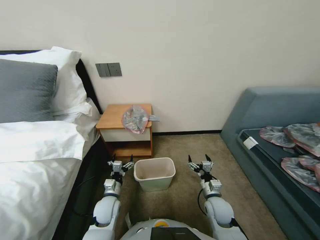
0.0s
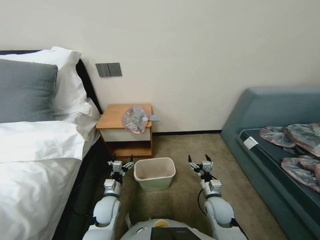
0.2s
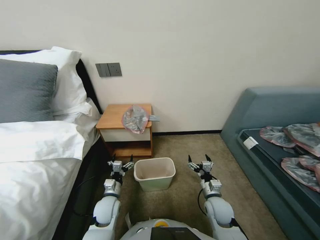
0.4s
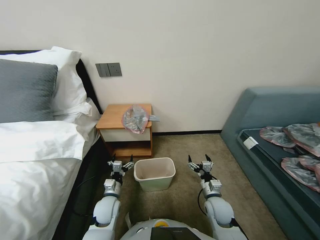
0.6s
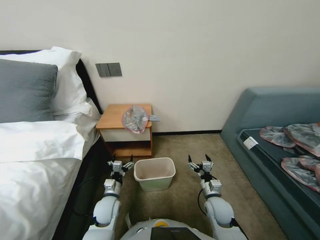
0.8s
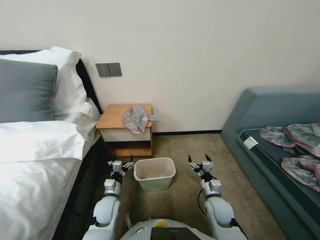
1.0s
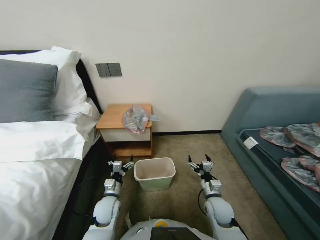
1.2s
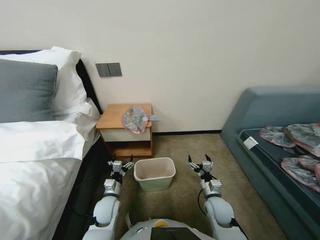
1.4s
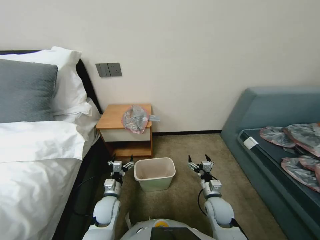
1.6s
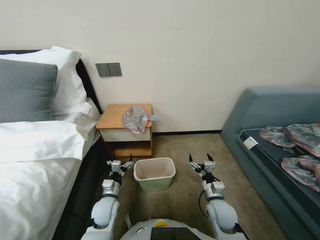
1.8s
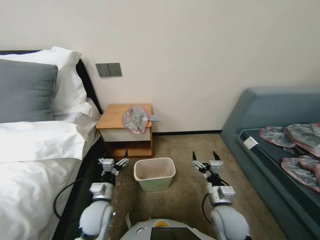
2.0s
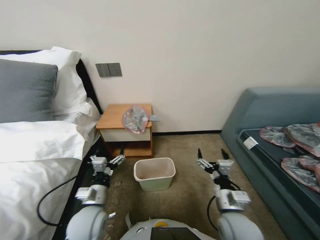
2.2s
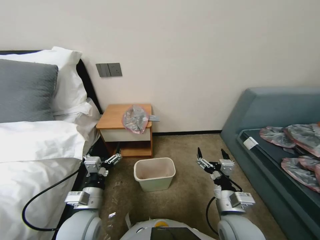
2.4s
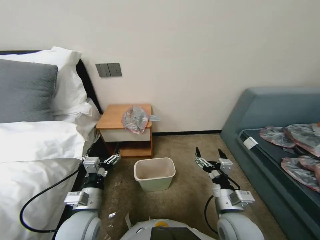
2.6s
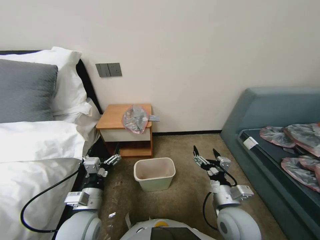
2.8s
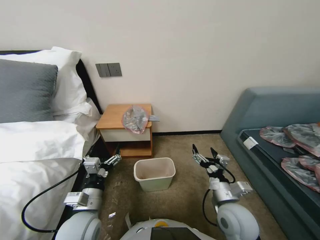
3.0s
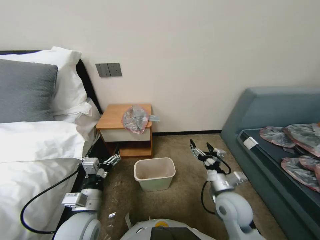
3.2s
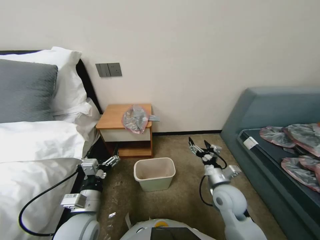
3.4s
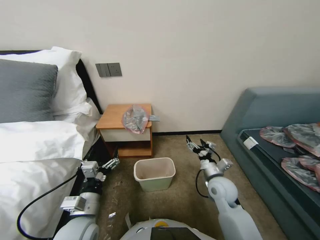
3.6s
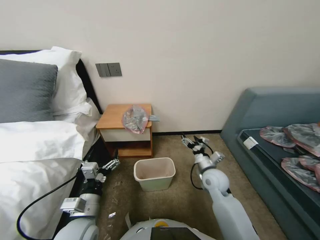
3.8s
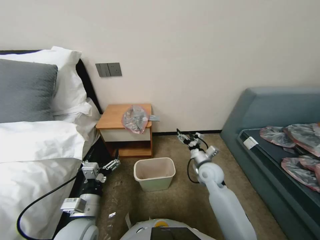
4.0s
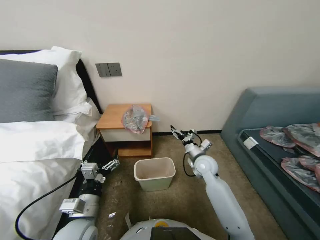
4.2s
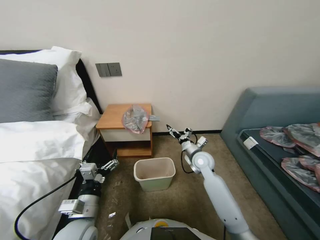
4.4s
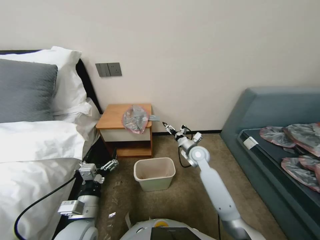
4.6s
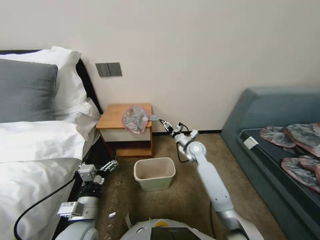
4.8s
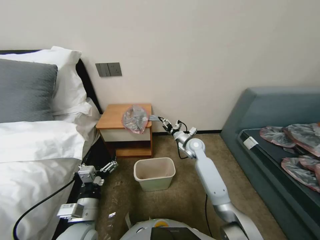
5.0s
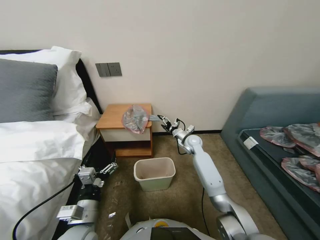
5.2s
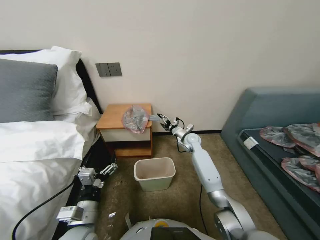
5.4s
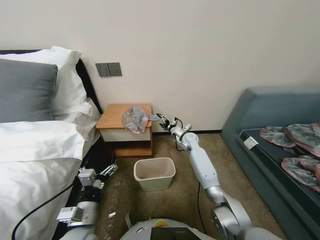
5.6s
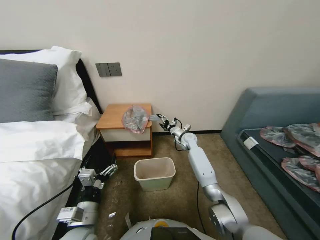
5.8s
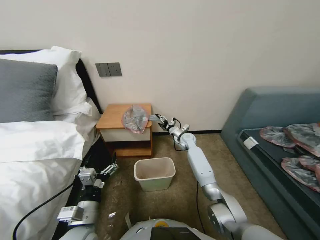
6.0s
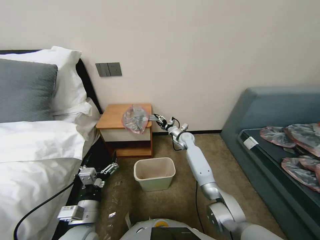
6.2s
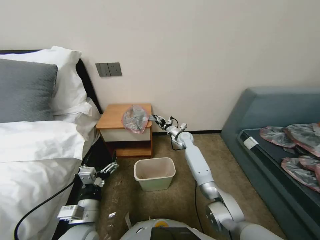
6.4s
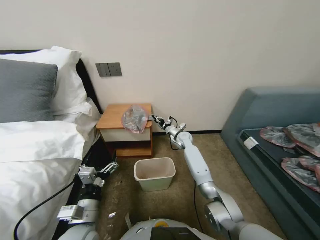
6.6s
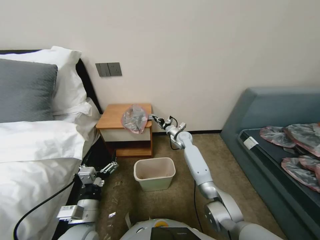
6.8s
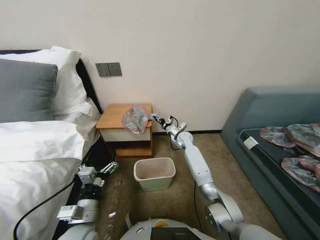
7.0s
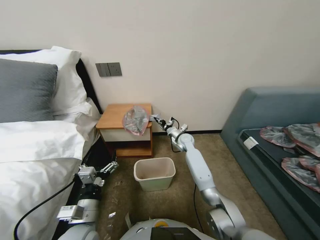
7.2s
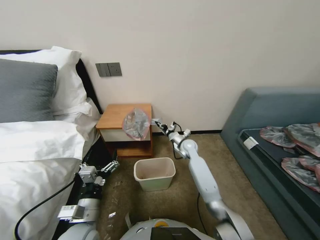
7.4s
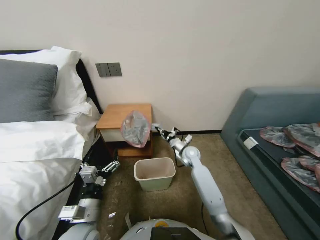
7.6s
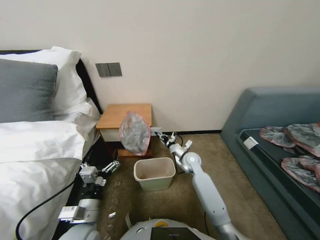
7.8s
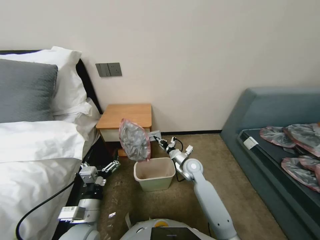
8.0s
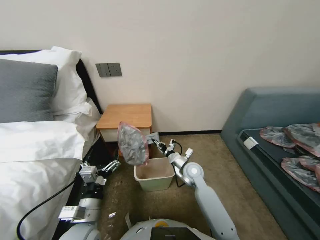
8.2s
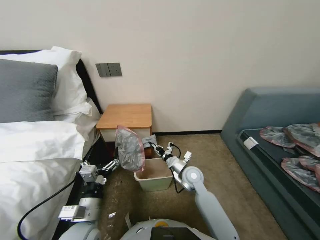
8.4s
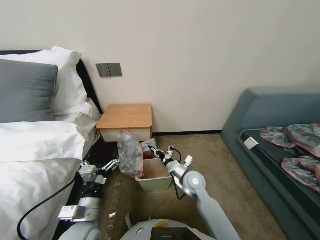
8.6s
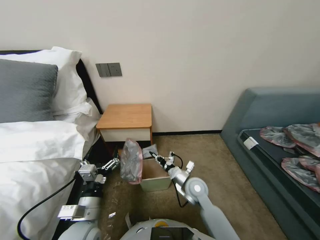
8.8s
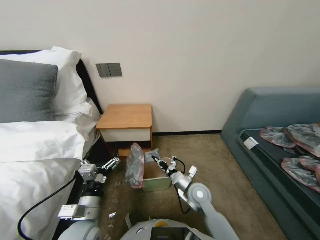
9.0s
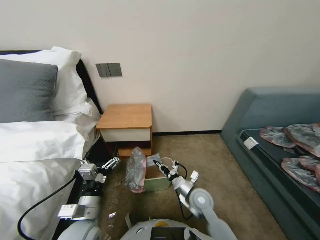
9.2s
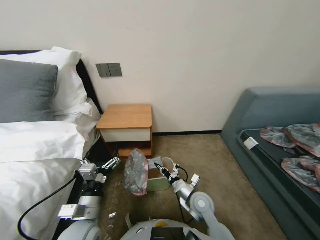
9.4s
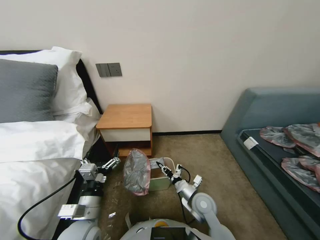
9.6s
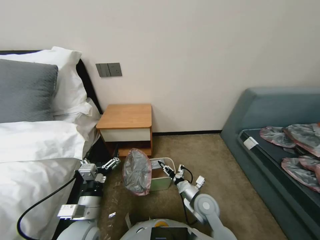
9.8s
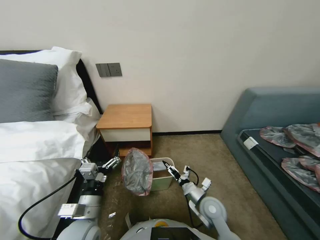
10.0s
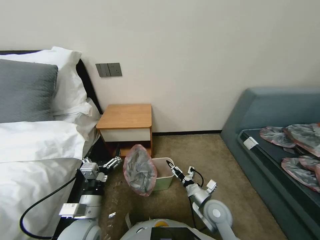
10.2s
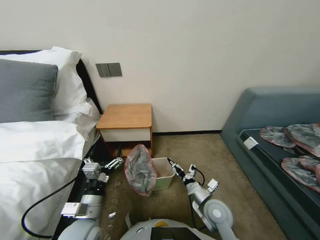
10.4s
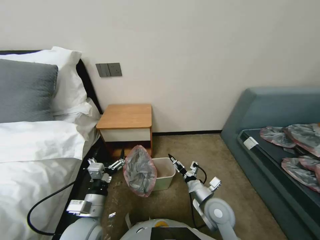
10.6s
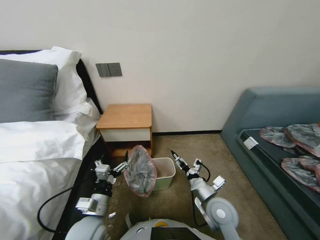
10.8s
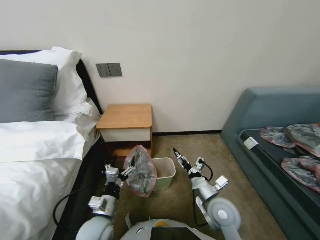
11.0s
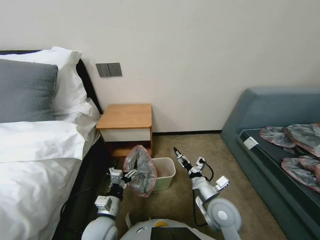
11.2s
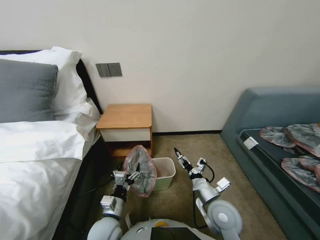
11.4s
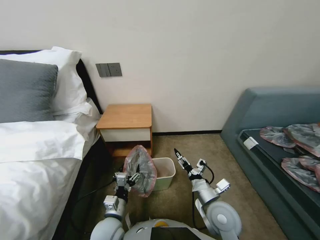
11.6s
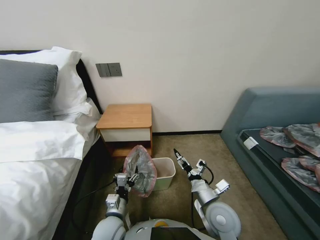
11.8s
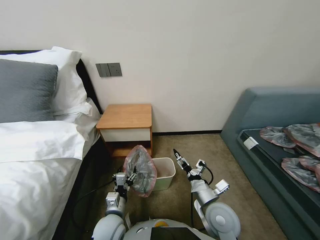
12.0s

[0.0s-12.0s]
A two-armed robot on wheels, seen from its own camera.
Task of the whole recording: Pick up the garbage bag from the table and place it over the trash can.
1.6s to 3.0s: Both grippers travel together upward and backward, about 15 cm.
3.0s to 4.4s: The right gripper goes approximately 20 cm forward.
4.4s to 6.0s: The right gripper moves forward, roughly 15 cm.
6.0s to 7.6s: The right gripper is displaced backward by roughly 10 cm, and closes its fingers.
7.6s to 9.0s: The right gripper travels backward by roughly 20 cm.
9.0s to 10.4s: The right gripper shifts roughly 10 cm backward and to the right, and opens up.
10.4s to 12.0s: The right gripper shifts some 5 cm upward, while the left gripper is displaced downward by about 10 cm.

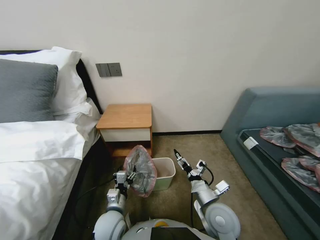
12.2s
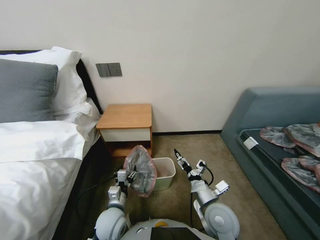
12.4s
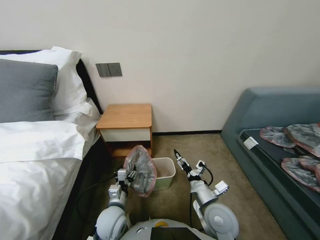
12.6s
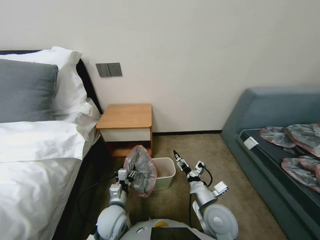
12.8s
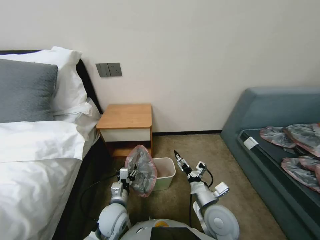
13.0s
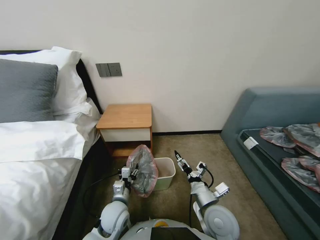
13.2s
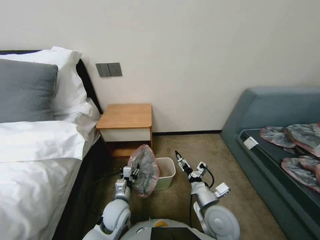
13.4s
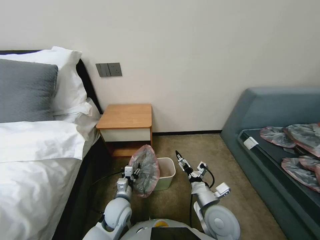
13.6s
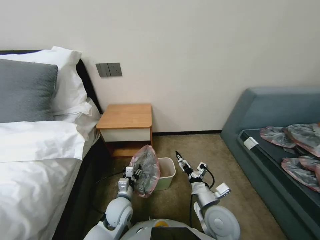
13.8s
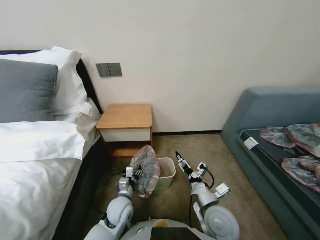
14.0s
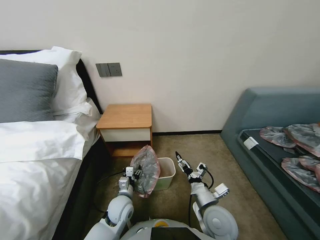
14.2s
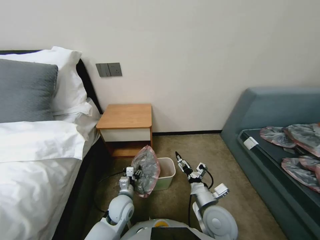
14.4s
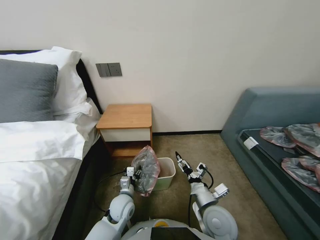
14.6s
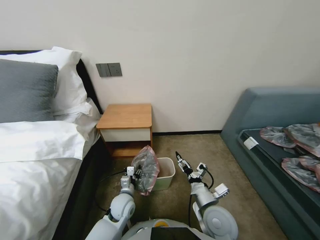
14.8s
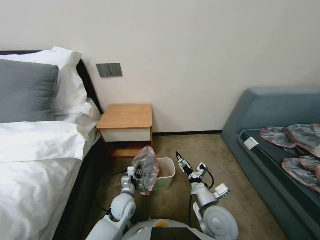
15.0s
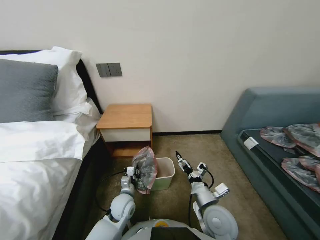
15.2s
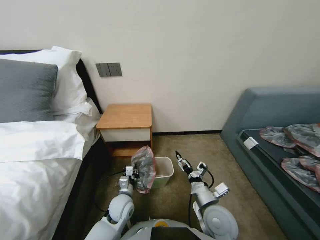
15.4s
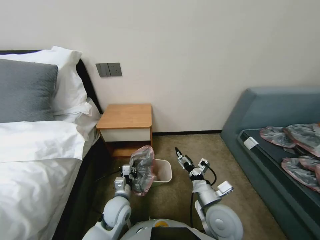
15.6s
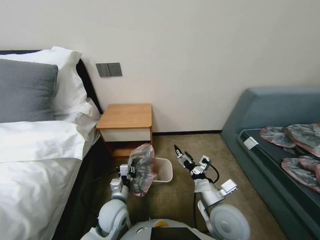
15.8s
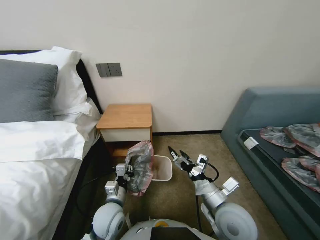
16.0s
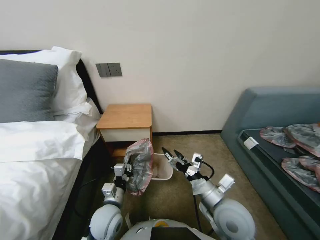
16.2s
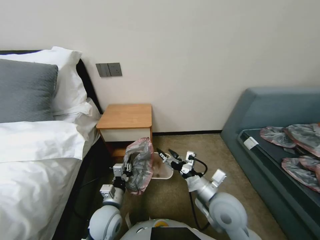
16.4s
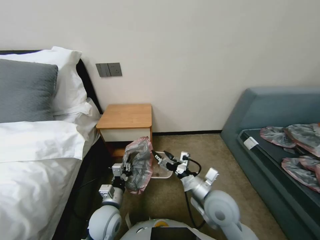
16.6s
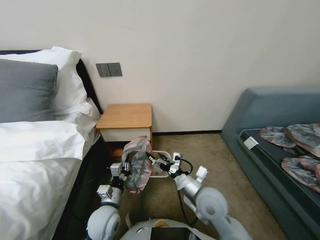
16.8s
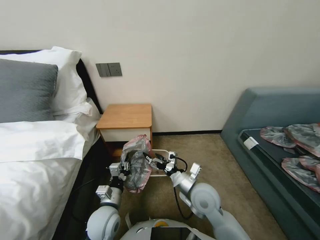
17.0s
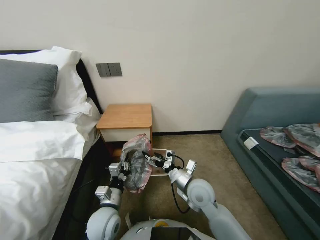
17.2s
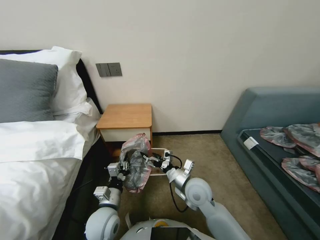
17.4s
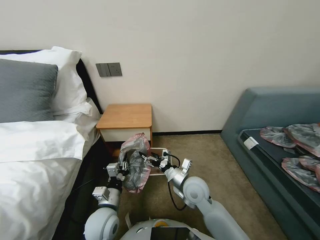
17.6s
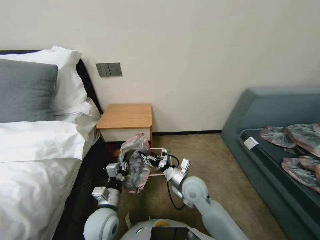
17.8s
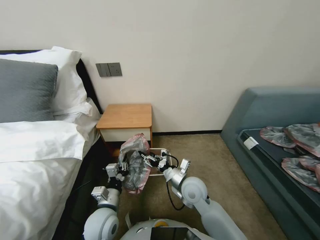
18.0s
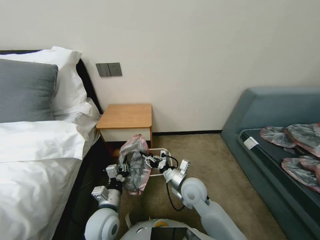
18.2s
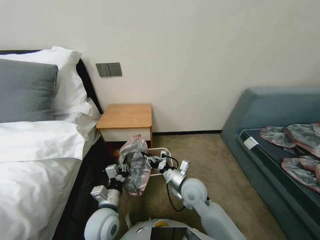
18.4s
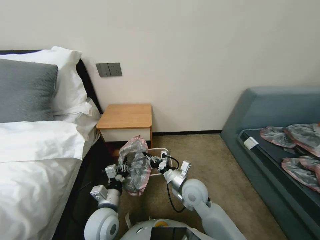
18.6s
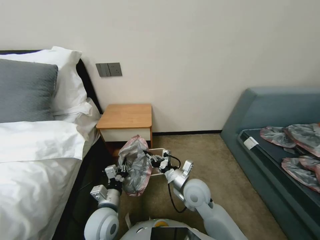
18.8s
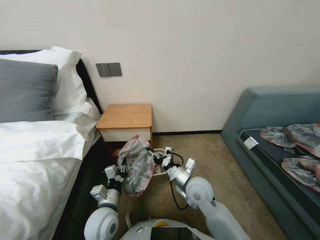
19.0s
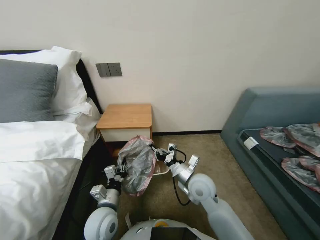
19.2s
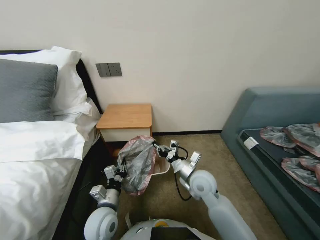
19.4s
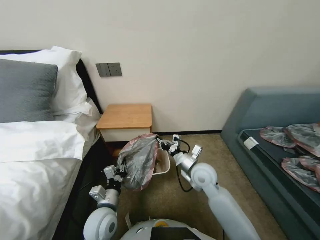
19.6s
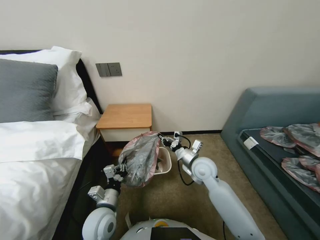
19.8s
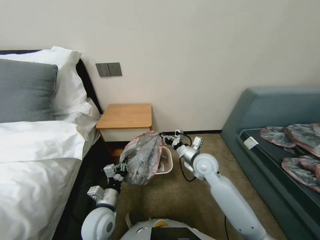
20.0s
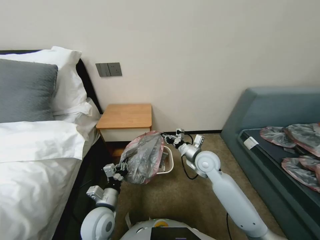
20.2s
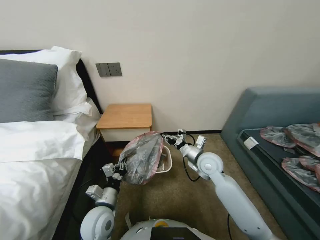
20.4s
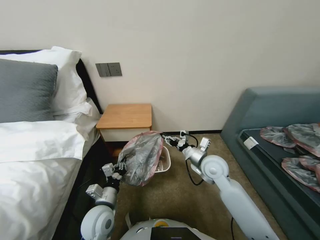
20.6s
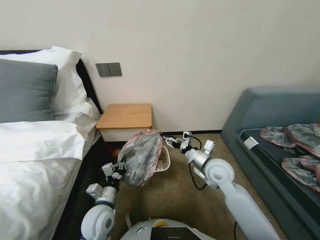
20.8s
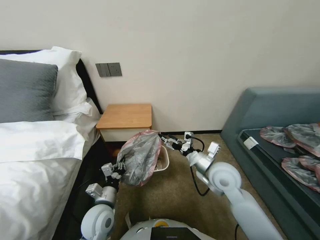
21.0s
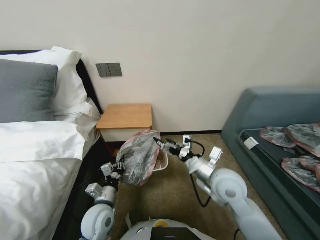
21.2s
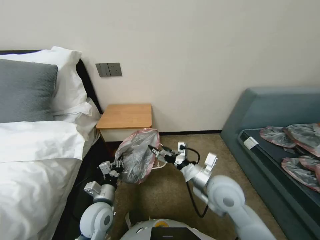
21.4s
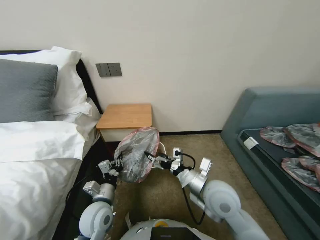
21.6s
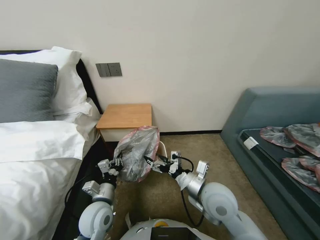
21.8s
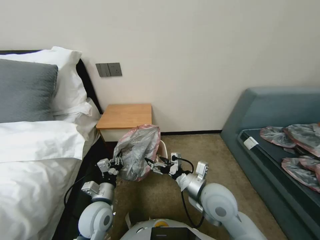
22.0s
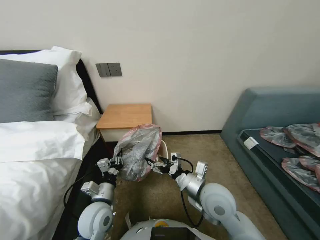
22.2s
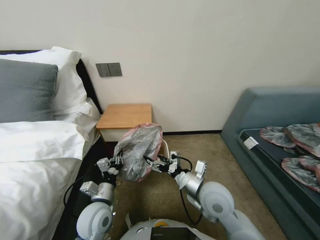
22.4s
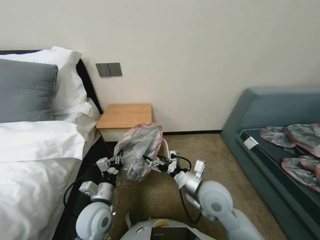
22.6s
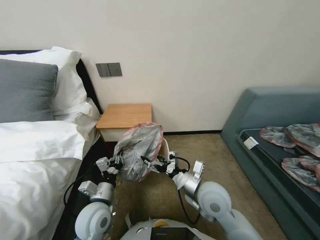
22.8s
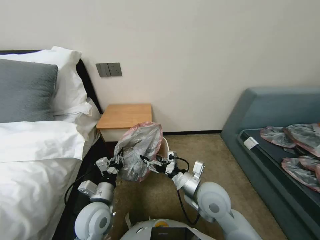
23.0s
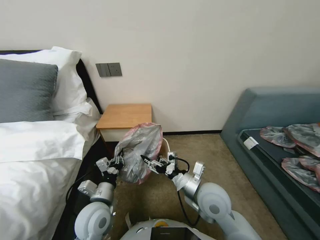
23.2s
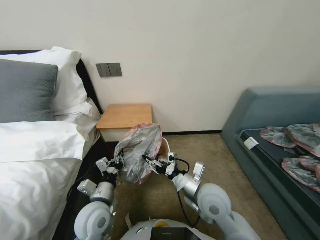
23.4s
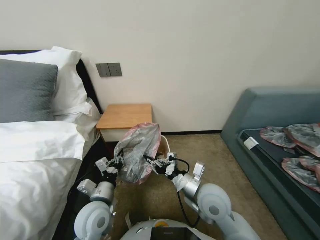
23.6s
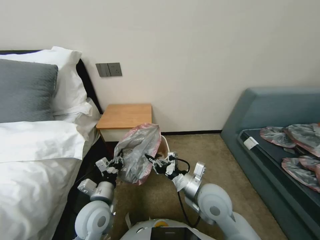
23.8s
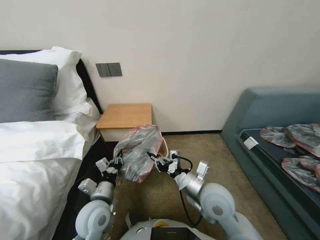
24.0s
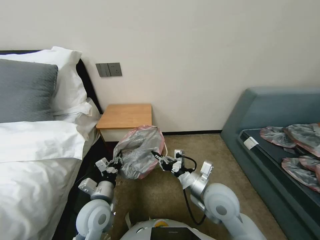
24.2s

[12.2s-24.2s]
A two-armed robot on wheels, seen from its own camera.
Task of the whole recording: Pick up the garbage bag from the table and place it over the trash can.
12.2s to 13.8s: The left gripper is displaced forward by approximately 5 cm.
13.8s to 15.2s: The grippers stay close to where they were, moving slightly.
15.2s to 16.6s: The left gripper shifts about 10 cm upward and backward, while the right gripper heads upward, covering roughly 5 cm.
16.6s to 18.2s: The right gripper shifts about 10 cm forward, to the left and downward, and closes its fingers.
18.2s to 19.8s: The right gripper travels forward by approximately 5 cm, and closes.
19.8s to 21.2s: The right gripper is displaced upward by about 5 cm, and opens its fingers.
21.2s to 22.6s: The right gripper ends up about 5 cm from where it was.
22.6s to 24.2s: The right gripper closes up.
